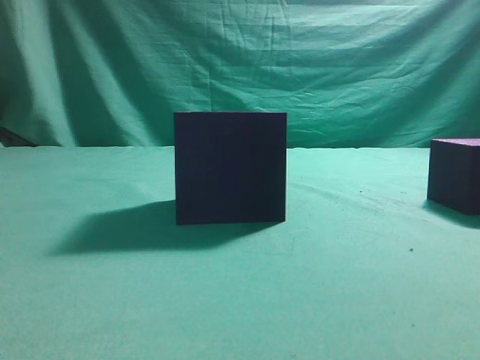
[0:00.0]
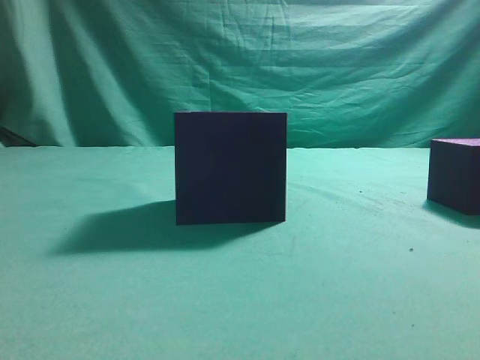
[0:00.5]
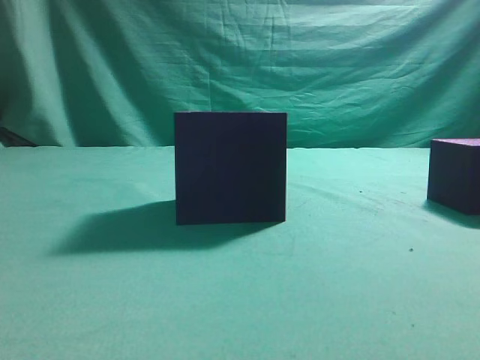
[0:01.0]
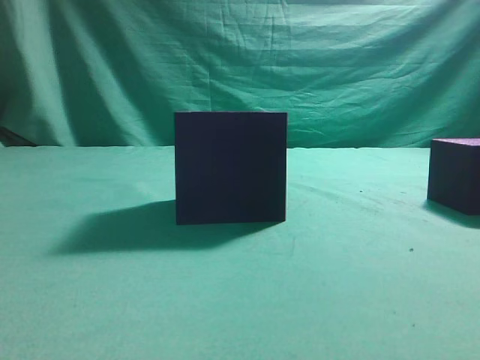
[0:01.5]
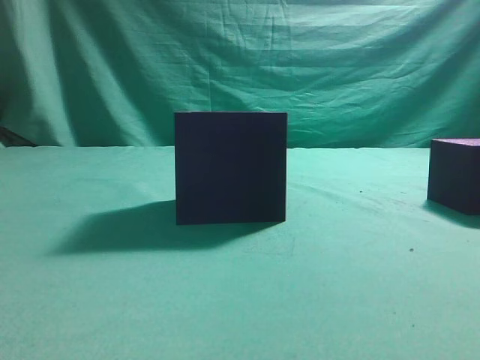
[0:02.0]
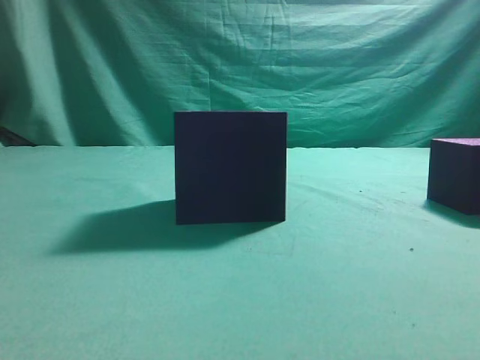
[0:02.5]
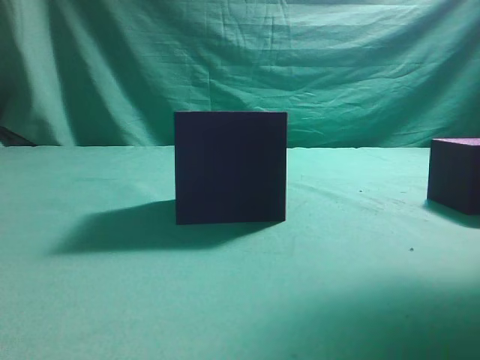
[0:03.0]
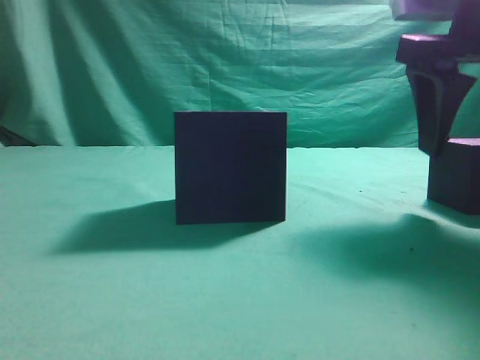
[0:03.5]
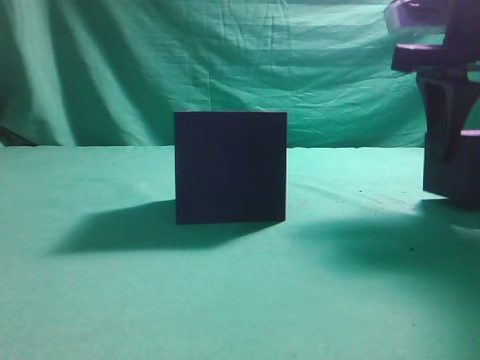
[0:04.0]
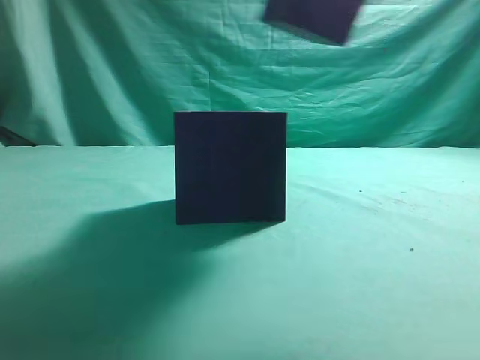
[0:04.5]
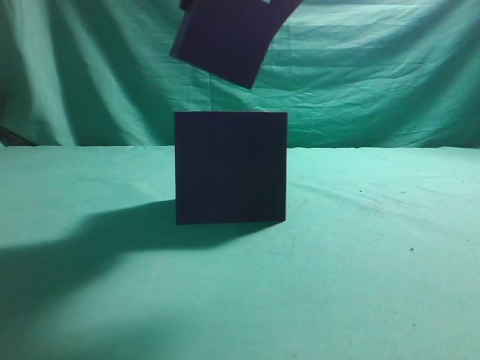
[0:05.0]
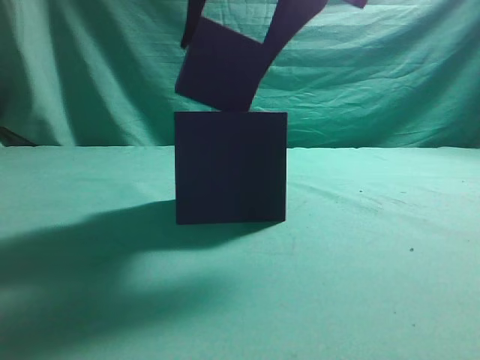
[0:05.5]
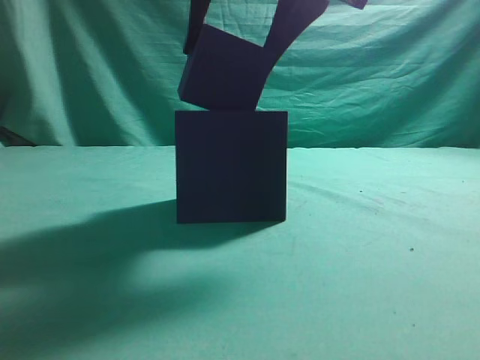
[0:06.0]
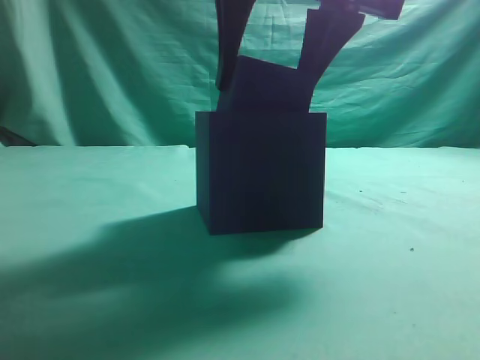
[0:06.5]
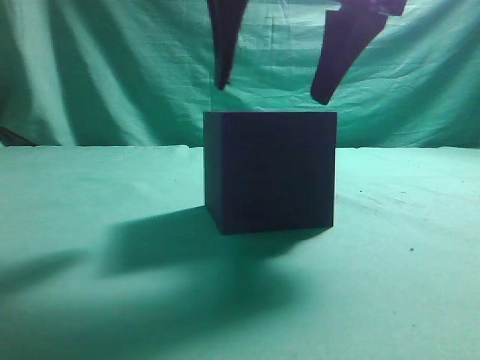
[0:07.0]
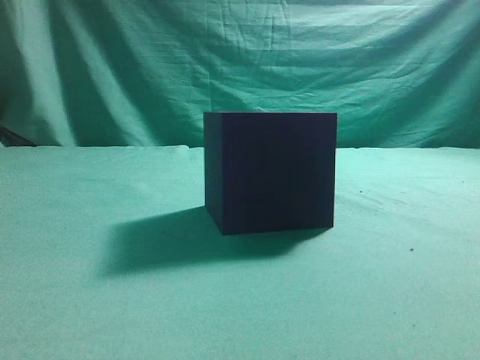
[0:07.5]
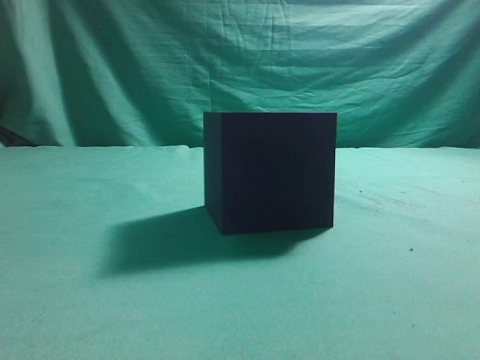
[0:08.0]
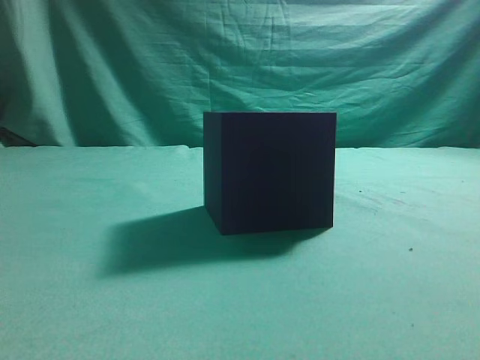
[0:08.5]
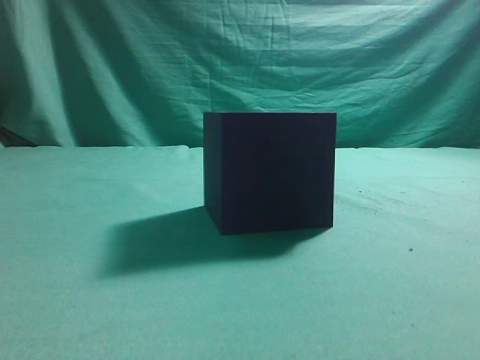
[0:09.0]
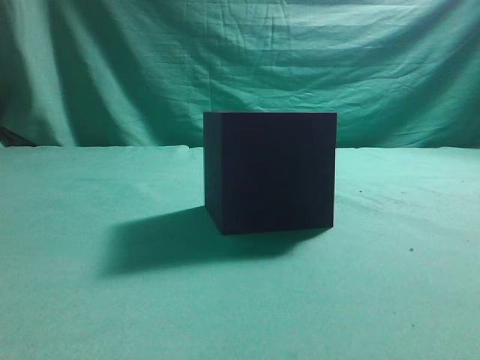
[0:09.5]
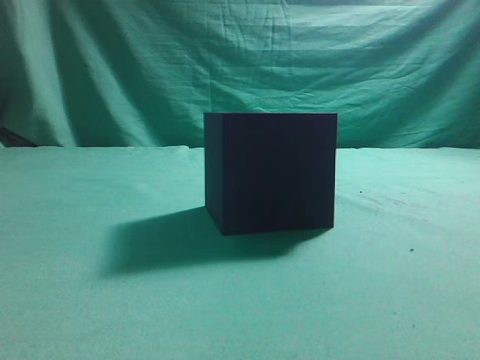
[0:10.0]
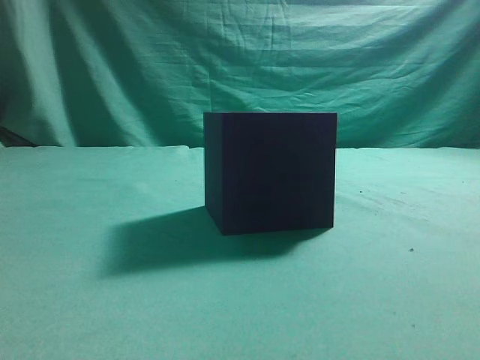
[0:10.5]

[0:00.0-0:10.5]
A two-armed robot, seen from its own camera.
Task of the whole recording: pick up the cube block and place it into the cube groove.
Step, 0:00.0 to 0:04.0: Grasp the cube.
Step, 0:04.5 to 0:07.0: Place cube into the cube-shaped recess.
0:02.0 to 0:04.0: The right gripper moves forward, roughly 20 cm, and opens.
0:04.0 to 0:06.5: The right gripper moves to the left, roughly 15 cm.
0:06.5 to 0:08.5: The right gripper heads backward, to the right and upward, covering approximately 30 cm, and closes.
